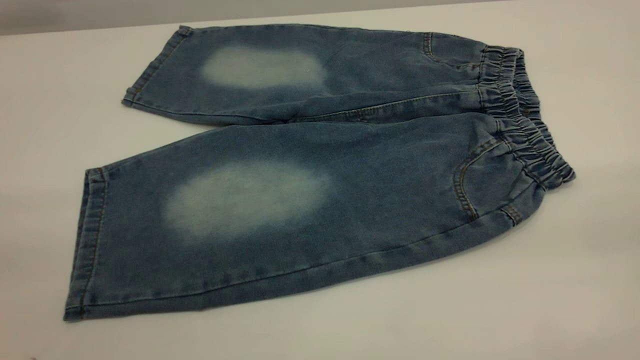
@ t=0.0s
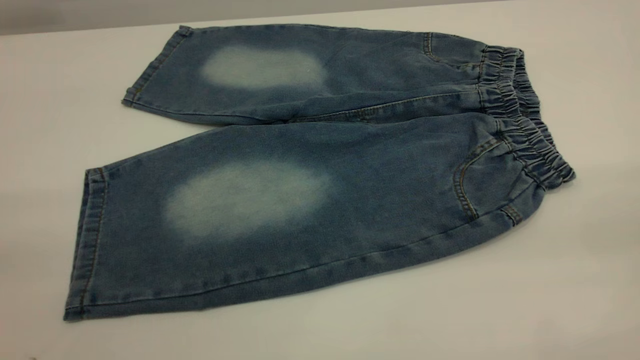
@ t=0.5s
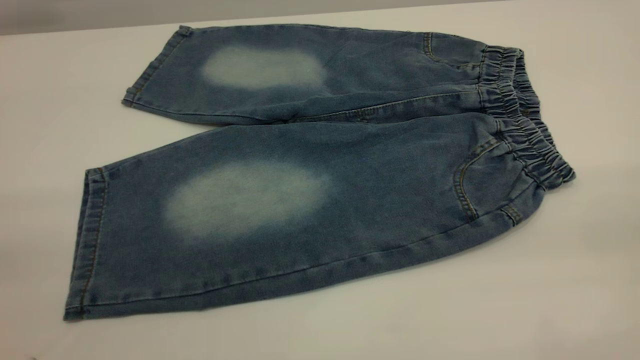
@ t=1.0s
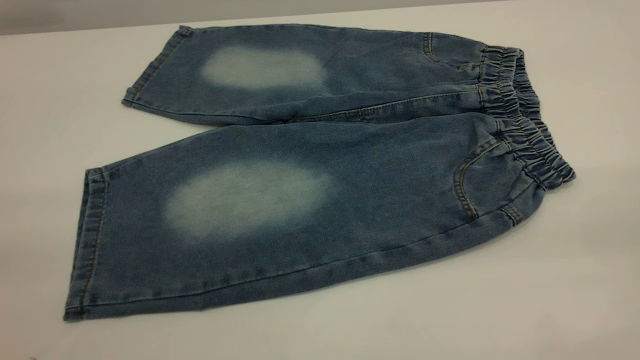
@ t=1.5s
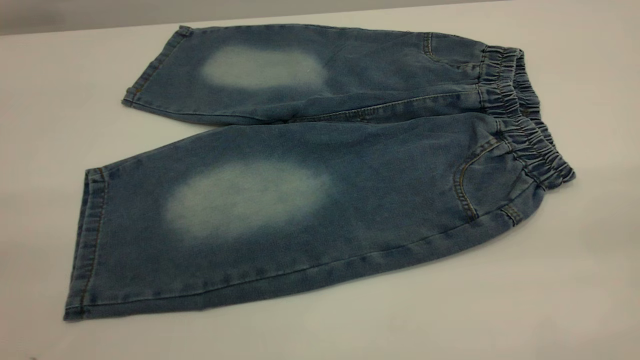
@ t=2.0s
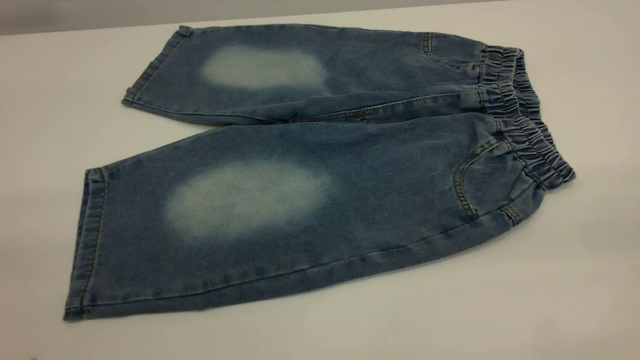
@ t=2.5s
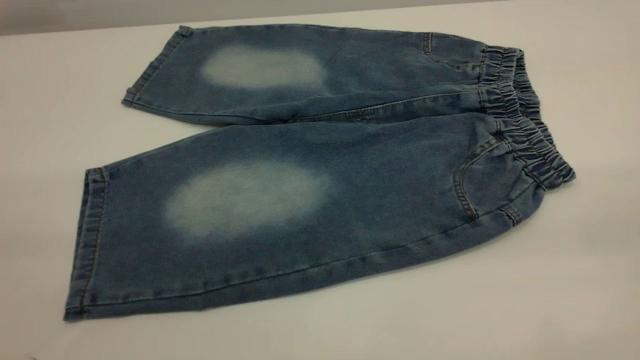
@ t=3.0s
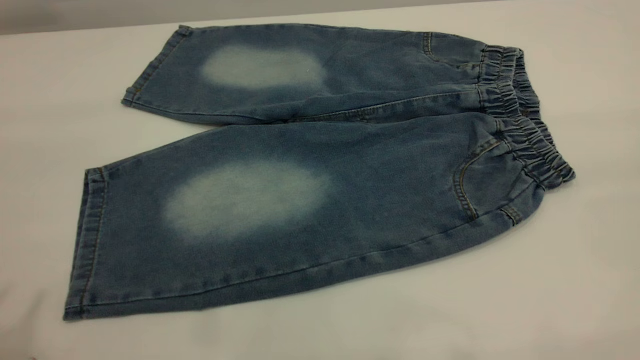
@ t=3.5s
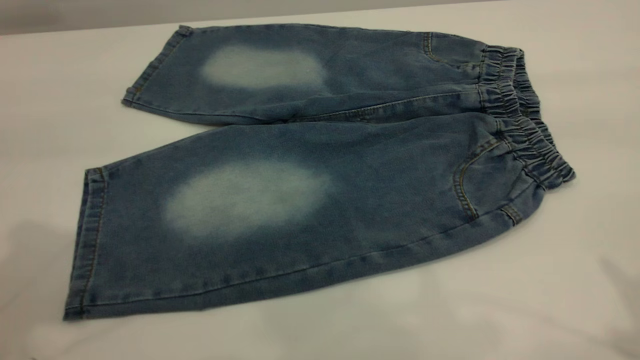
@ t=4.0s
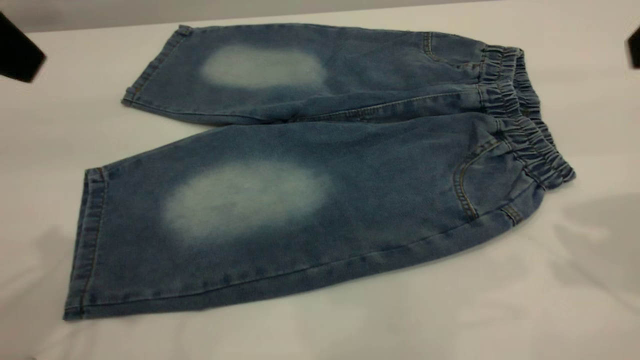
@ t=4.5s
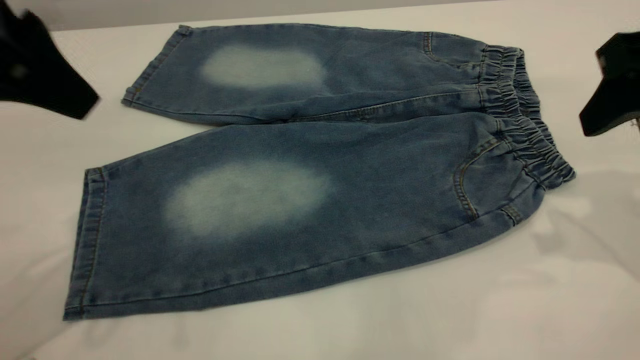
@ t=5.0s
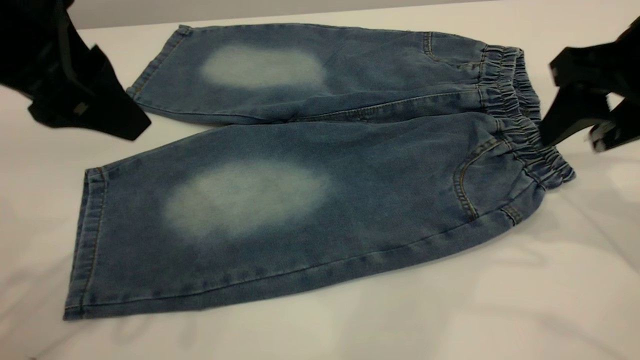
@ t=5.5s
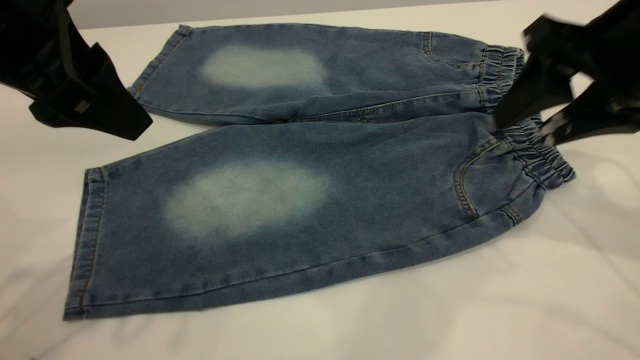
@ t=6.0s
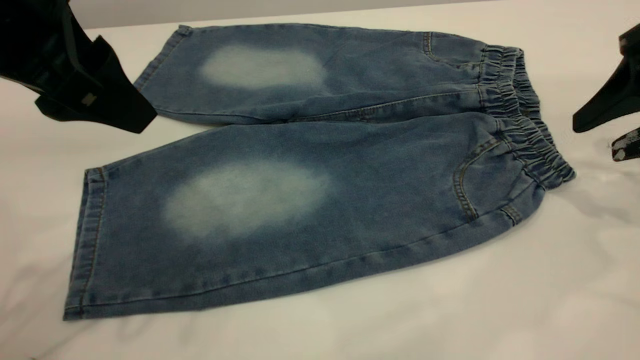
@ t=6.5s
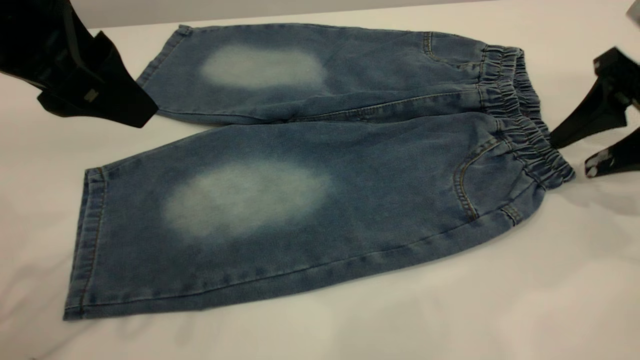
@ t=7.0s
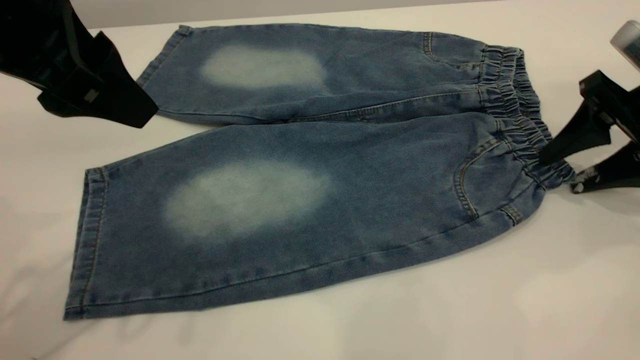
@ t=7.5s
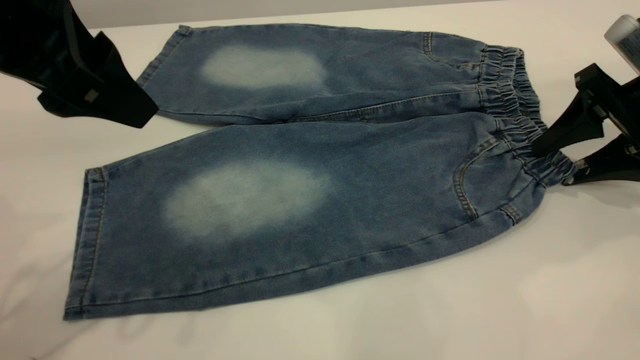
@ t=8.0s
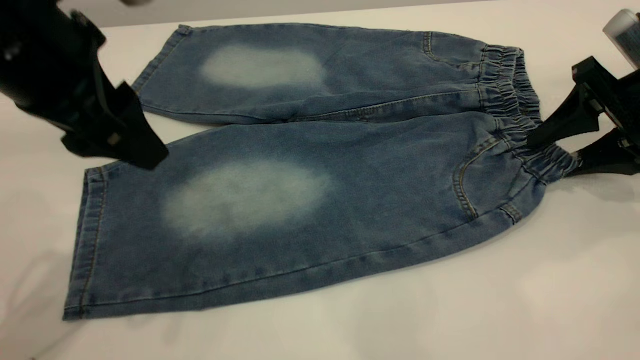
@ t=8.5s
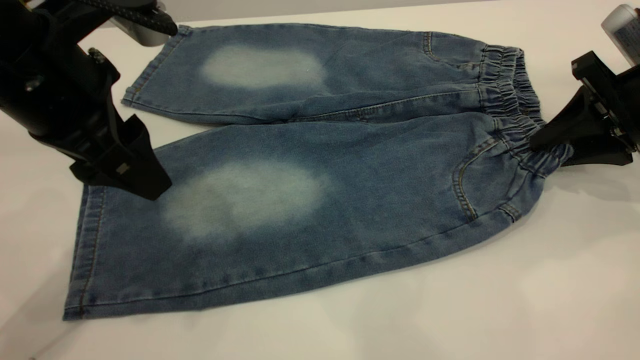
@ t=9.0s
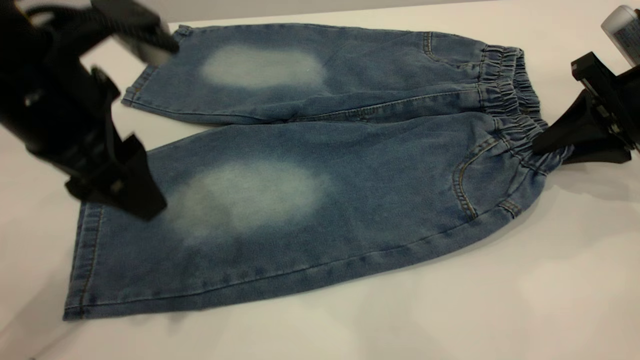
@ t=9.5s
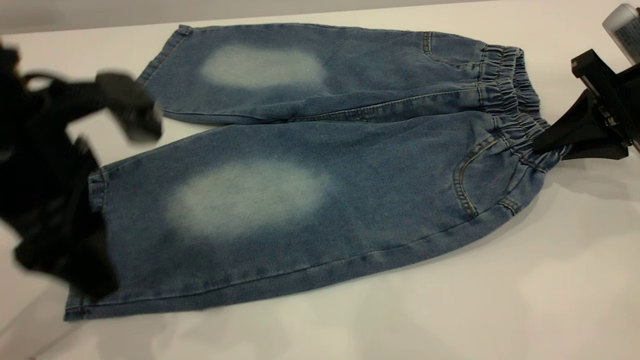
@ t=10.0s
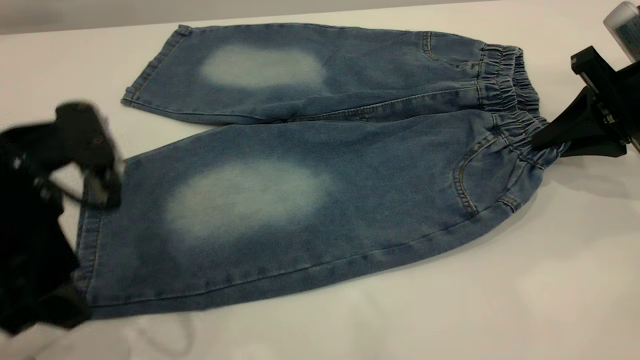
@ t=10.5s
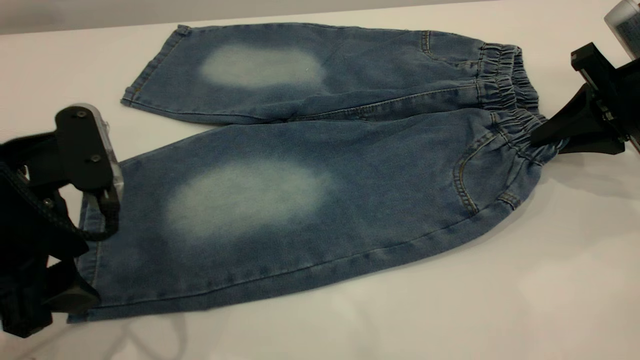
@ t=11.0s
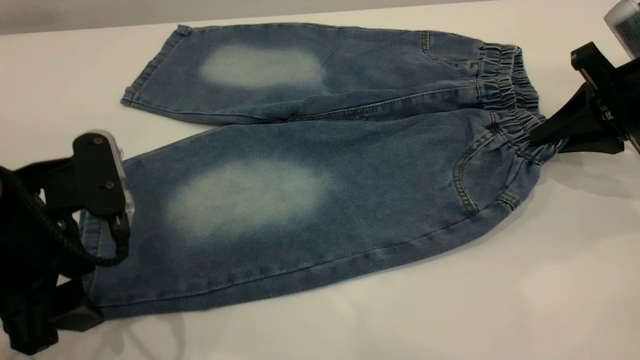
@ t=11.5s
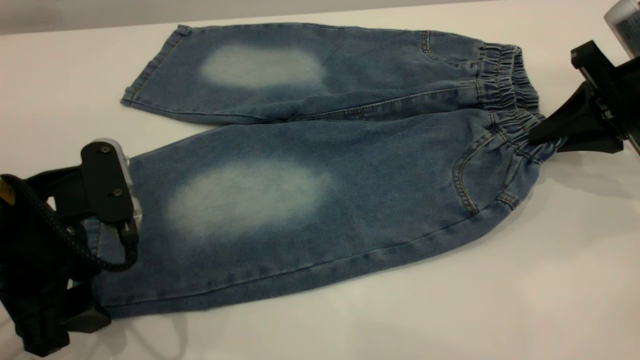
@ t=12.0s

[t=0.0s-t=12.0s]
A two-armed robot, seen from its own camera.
t=0.0s to t=2.0s: Both grippers stay about where they are.
t=4.0s to t=6.0s: The left gripper heads downward and to the right, covering approximately 10 cm, and opens; the right gripper heads downward and forward, covering approximately 20 cm.
t=6.0s to t=8.0s: The right gripper goes approximately 10 cm downward and to the right.
t=8.0s to t=10.0s: The left gripper moves downward, roughly 10 cm, while the right gripper closes its fingers.
t=10.0s to t=12.0s: The left gripper shifts approximately 5 cm downward.

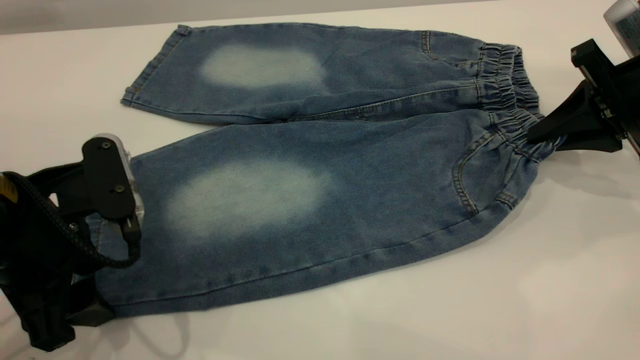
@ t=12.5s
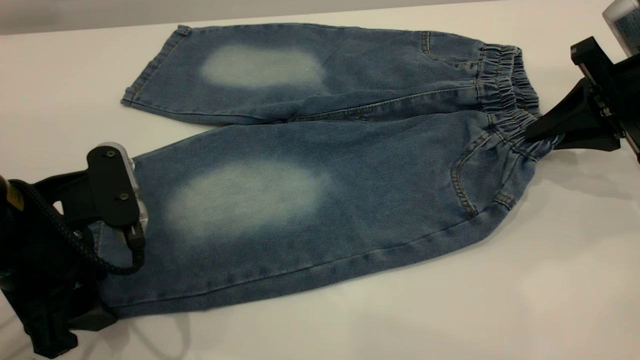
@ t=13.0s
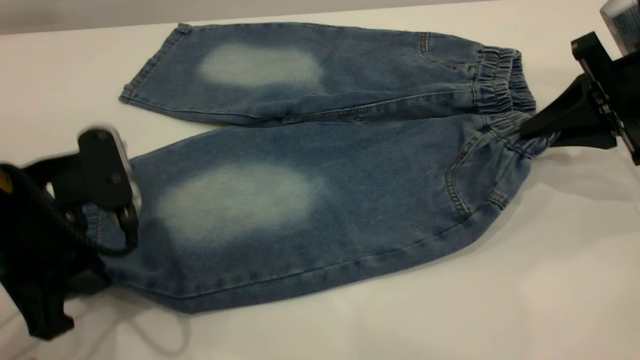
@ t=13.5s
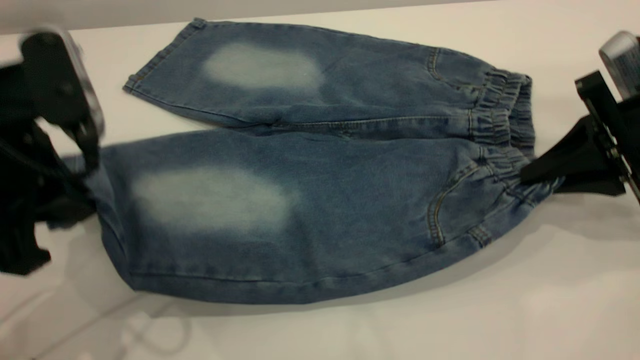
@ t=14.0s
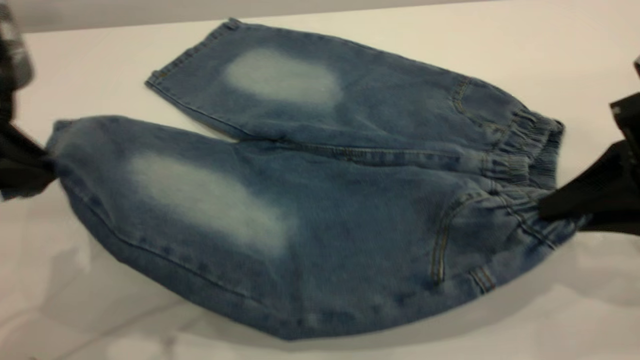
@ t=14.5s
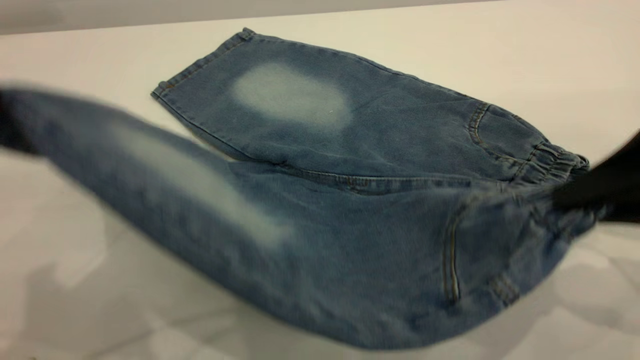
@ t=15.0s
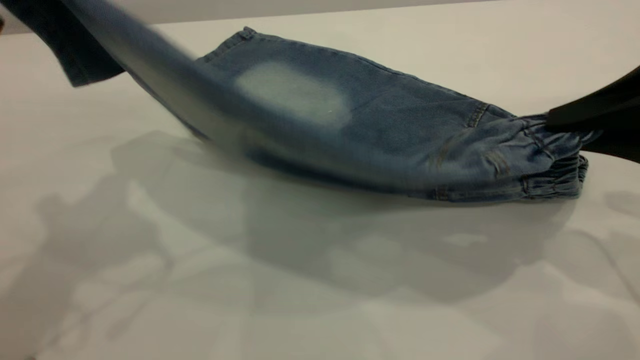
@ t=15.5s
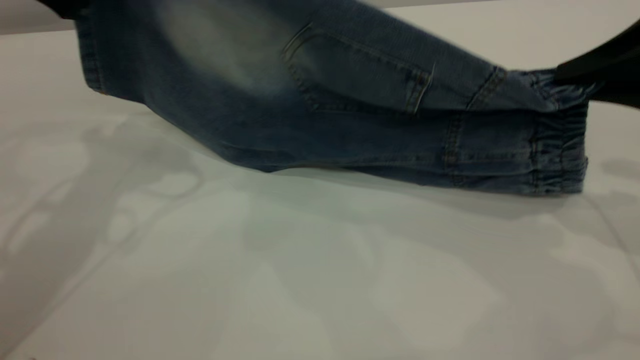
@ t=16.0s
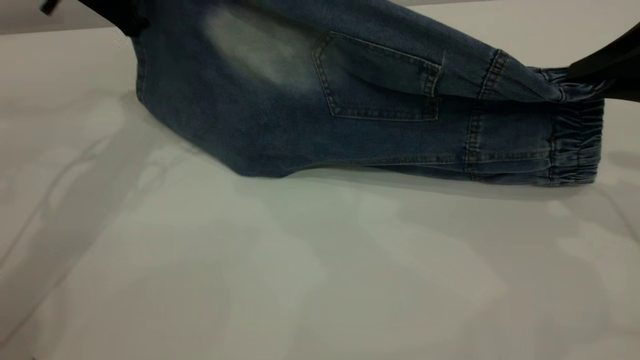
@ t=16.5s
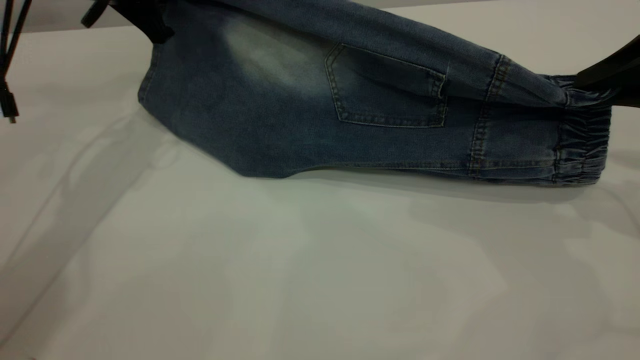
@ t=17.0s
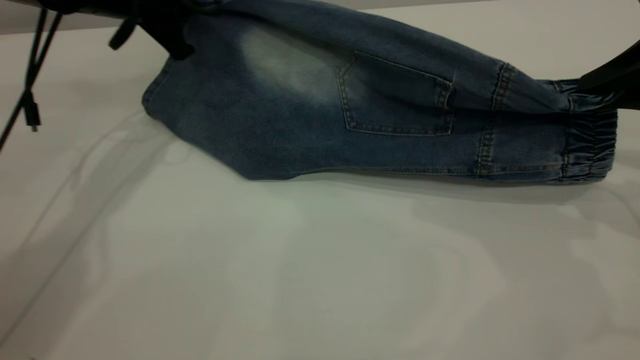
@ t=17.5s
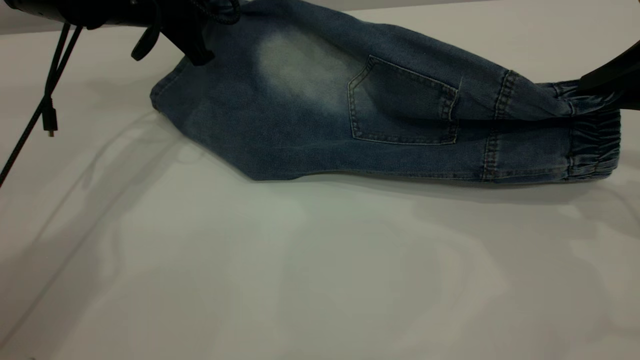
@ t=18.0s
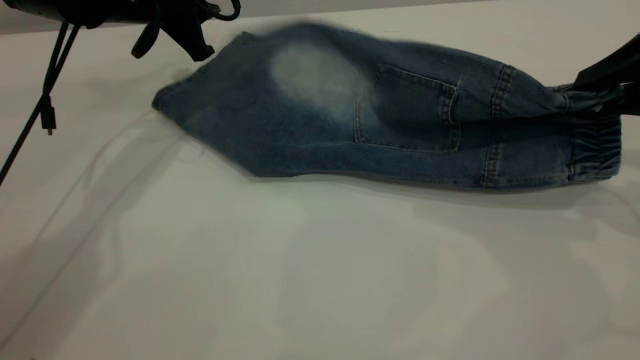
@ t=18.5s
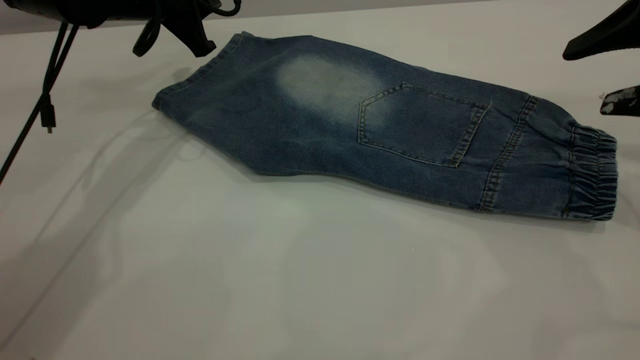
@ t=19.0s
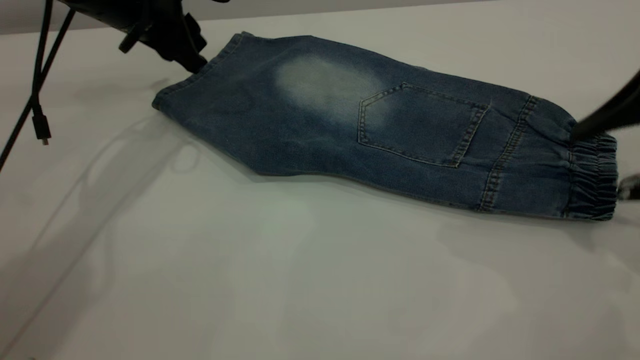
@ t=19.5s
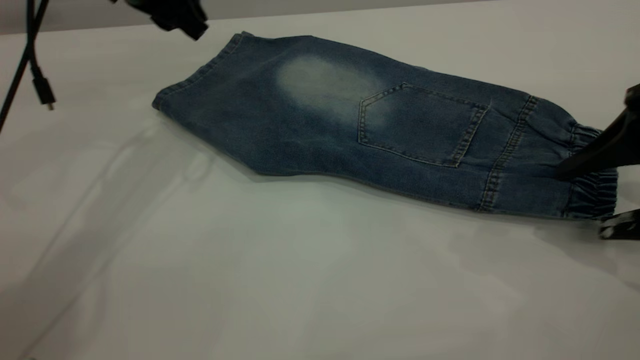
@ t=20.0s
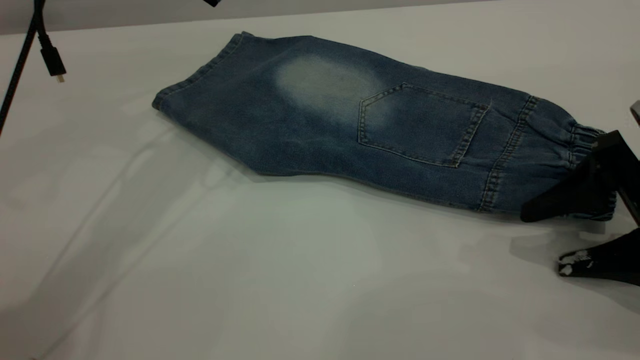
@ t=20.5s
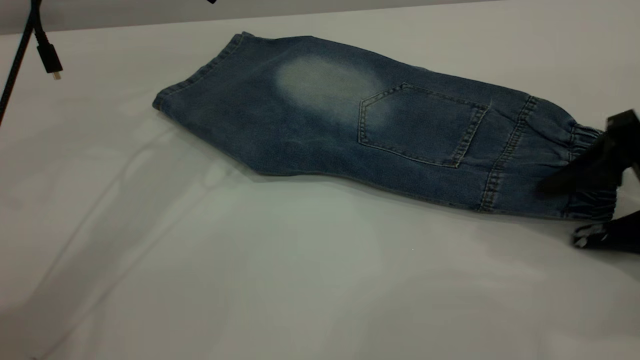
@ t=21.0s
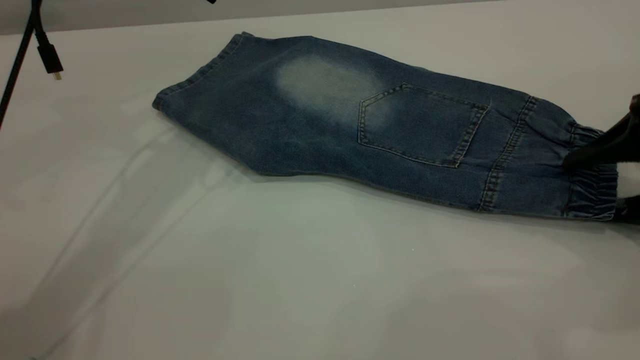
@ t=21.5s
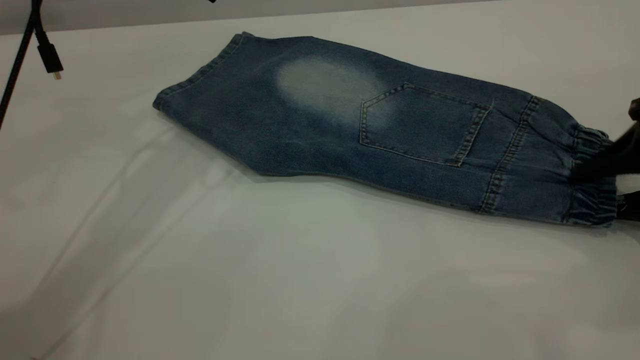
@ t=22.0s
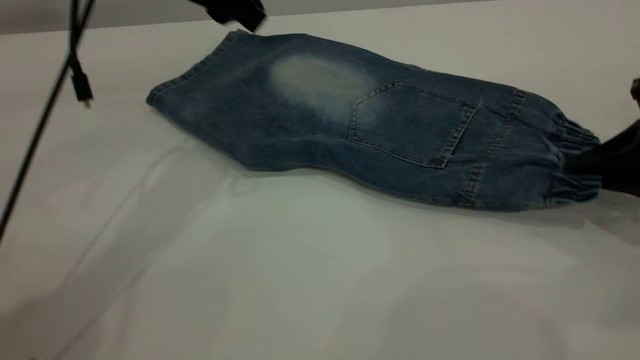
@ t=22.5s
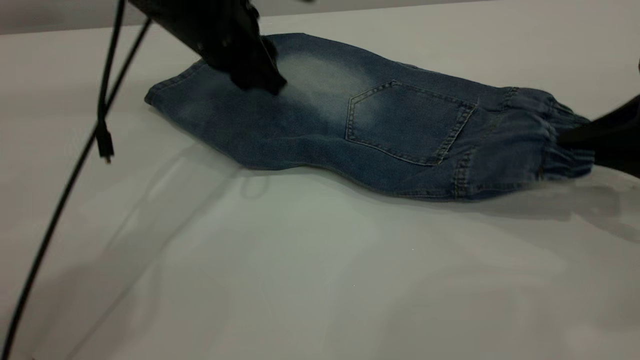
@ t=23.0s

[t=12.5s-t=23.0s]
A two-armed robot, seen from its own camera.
Step, t=12.5s to t=19.5s: Fold the bottom of the pants upward.
t=12.5s to t=14.5s: The right gripper heads backward, covering roughly 10 cm; the left gripper goes some 10 cm upward, and closes its fingers.
t=14.5s to t=16.5s: The left gripper is displaced forward by some 25 cm. The right gripper goes about 5 cm upward.
t=16.5s to t=19.0s: The left gripper travels downward by some 5 cm, and opens its fingers; the right gripper opens.
t=19.0s to t=21.0s: The left gripper heads upward, covering roughly 10 cm, while the right gripper shifts about 10 cm downward.
t=21.0s to t=23.0s: The right gripper closes up. The left gripper shifts roughly 10 cm downward.
